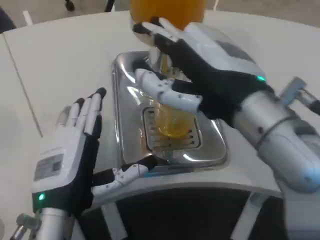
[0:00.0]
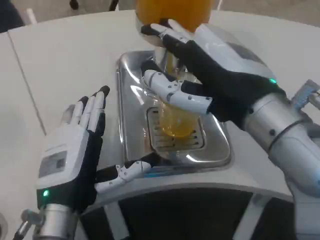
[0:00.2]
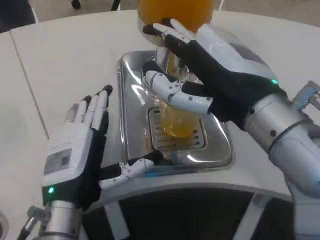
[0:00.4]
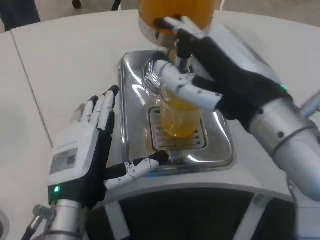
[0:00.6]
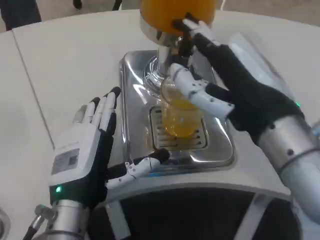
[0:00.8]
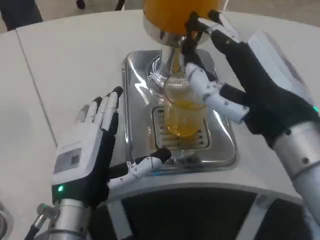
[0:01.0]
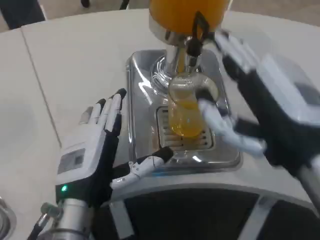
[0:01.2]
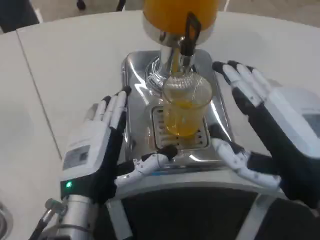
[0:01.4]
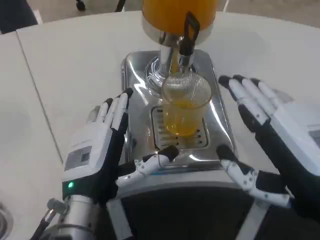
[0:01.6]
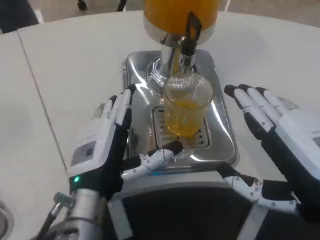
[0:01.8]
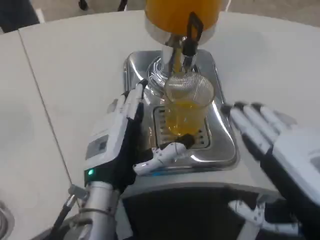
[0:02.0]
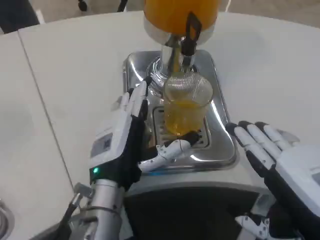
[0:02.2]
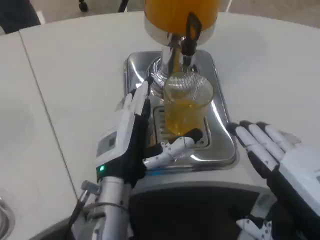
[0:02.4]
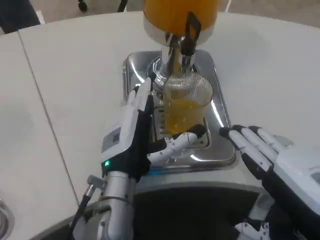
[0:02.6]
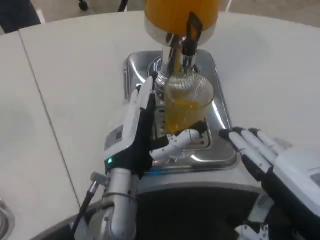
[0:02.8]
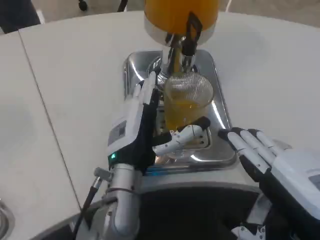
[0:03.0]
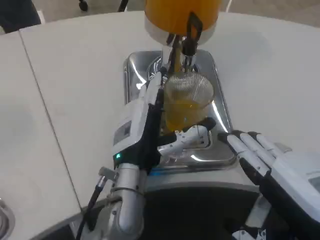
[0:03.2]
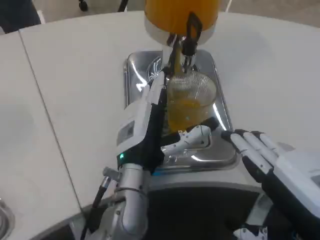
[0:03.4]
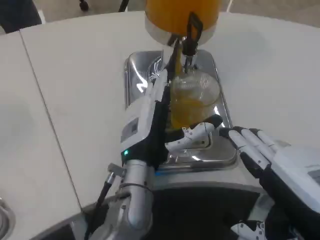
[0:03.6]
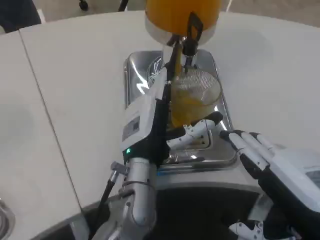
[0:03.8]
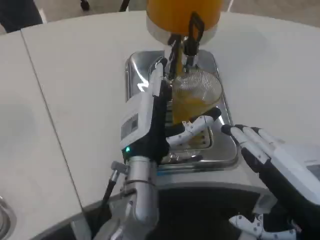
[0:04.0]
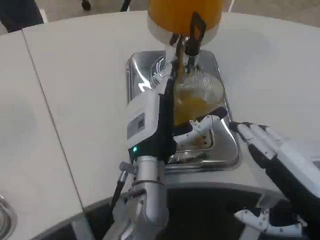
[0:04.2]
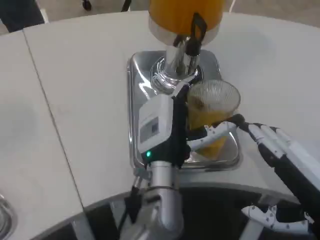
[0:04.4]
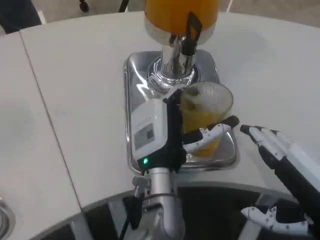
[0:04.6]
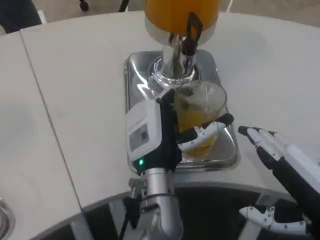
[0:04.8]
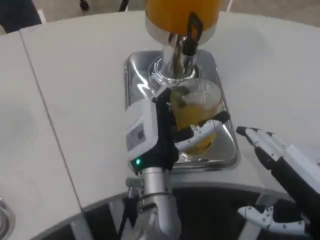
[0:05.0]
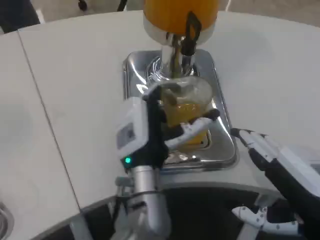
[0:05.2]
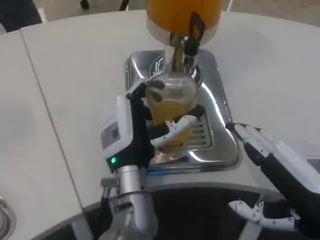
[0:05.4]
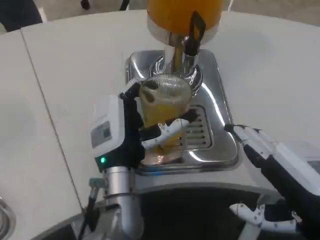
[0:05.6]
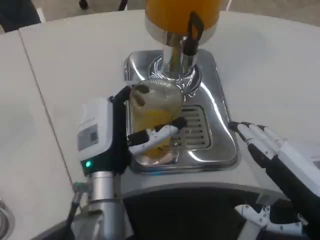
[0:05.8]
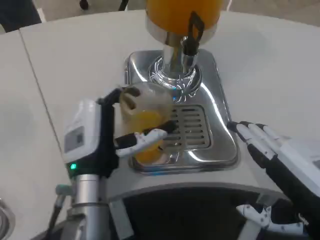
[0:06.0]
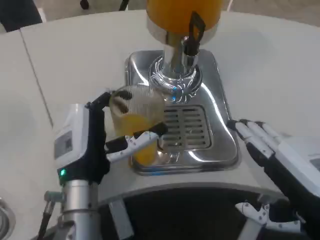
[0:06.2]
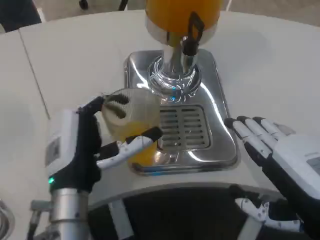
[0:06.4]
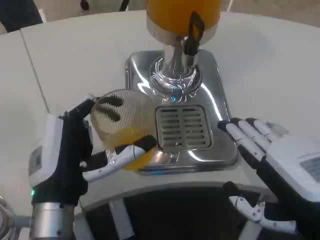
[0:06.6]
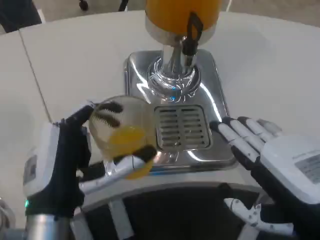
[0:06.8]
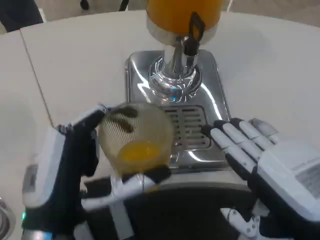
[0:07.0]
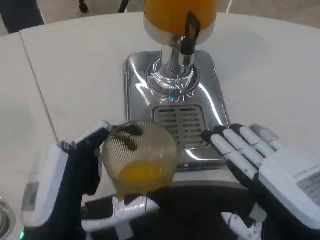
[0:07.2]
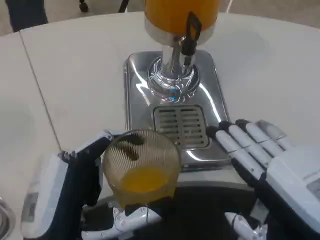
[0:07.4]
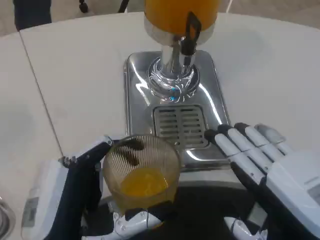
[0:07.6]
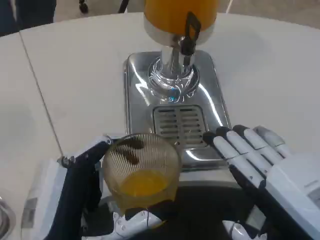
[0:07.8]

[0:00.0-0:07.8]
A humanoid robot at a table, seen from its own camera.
Task of the whole recording: Grasp the cup under the faucet to collect the drink, then remove the cup.
0:00.0 to 0:01.6: The right hand goes some 10 cm downward, to the right and backward.
0:01.6 to 0:03.2: The left hand shifts approximately 10 cm to the right and forward.
0:03.2 to 0:04.6: The left hand moves to the right, roughly 5 cm.
0:04.6 to 0:06.2: The left hand is displaced to the left by some 10 cm.
0:06.2 to 0:07.8: The left hand heads backward, covering roughly 15 cm.

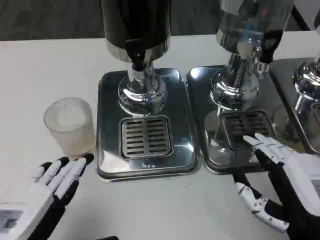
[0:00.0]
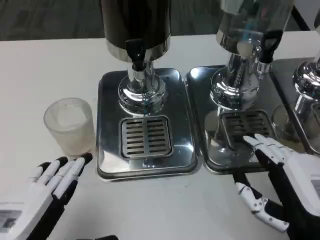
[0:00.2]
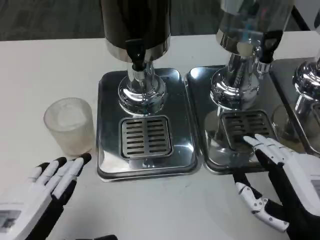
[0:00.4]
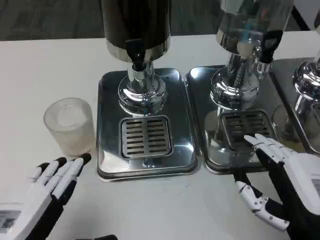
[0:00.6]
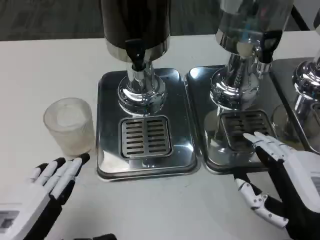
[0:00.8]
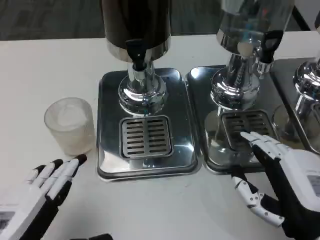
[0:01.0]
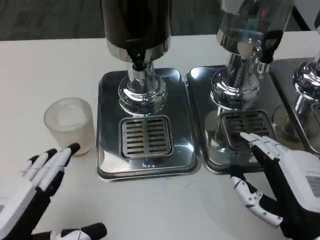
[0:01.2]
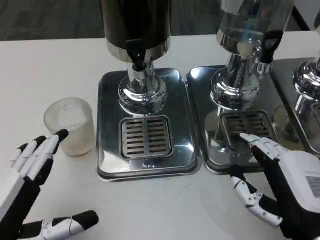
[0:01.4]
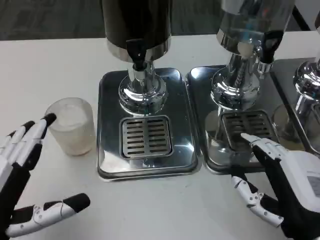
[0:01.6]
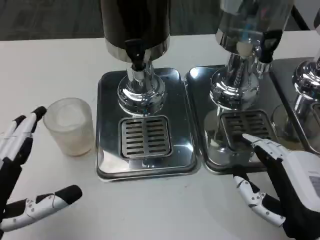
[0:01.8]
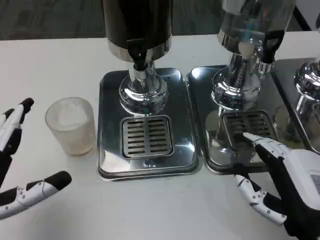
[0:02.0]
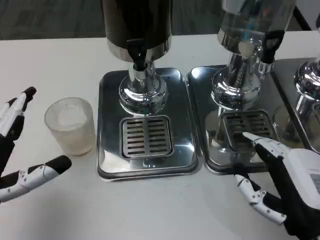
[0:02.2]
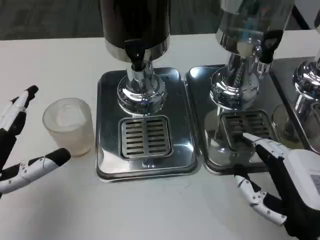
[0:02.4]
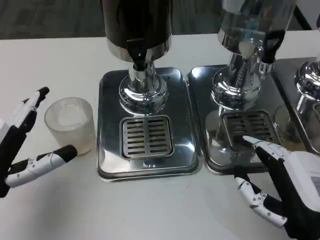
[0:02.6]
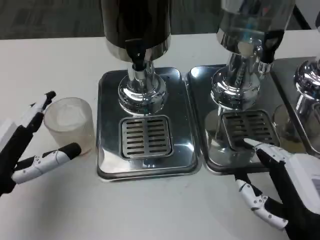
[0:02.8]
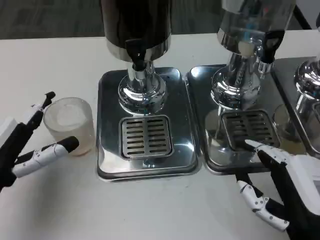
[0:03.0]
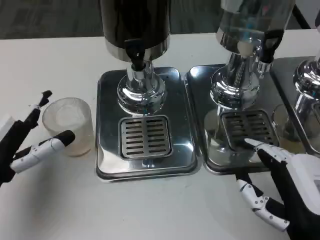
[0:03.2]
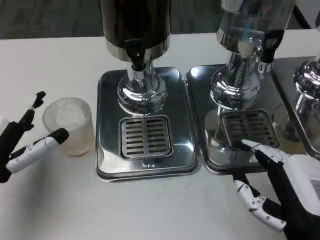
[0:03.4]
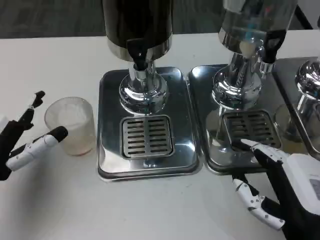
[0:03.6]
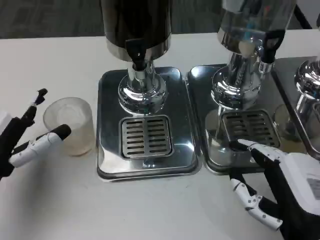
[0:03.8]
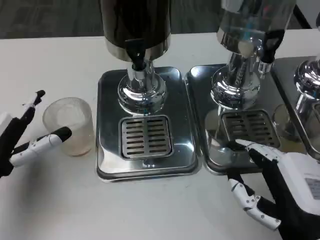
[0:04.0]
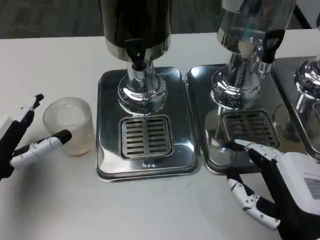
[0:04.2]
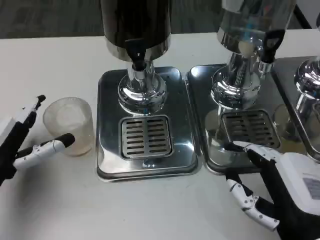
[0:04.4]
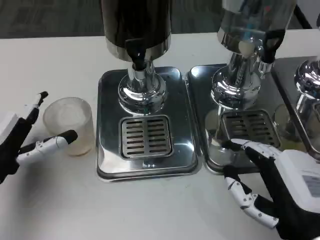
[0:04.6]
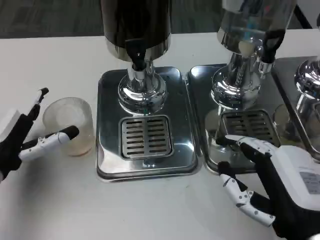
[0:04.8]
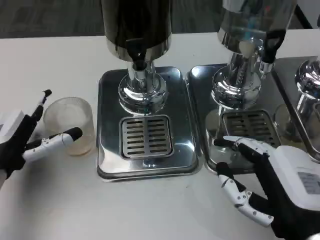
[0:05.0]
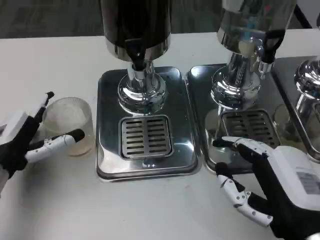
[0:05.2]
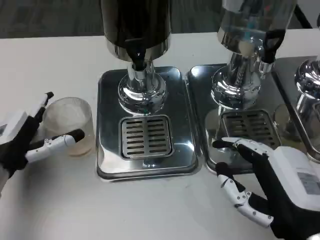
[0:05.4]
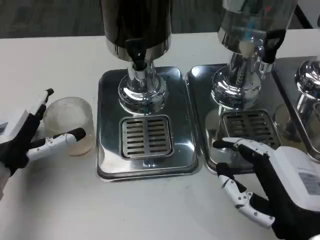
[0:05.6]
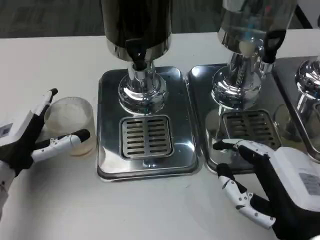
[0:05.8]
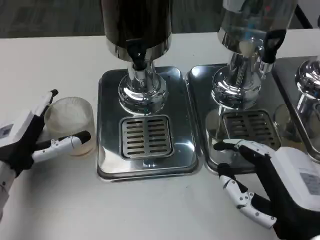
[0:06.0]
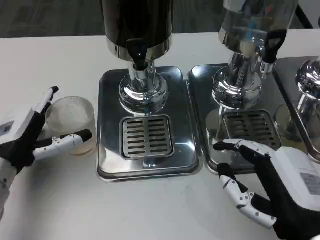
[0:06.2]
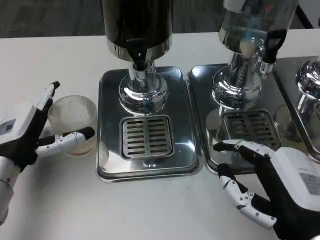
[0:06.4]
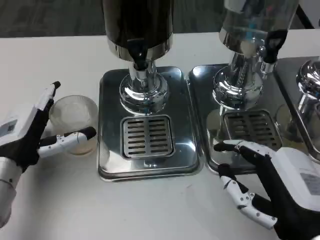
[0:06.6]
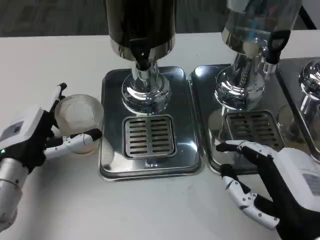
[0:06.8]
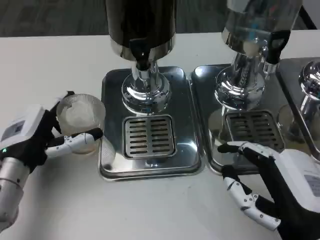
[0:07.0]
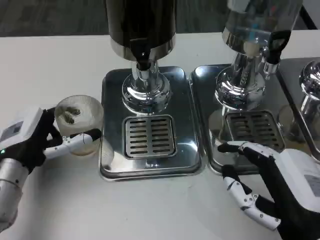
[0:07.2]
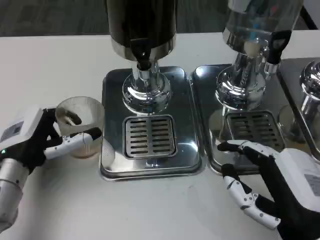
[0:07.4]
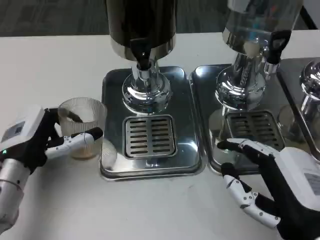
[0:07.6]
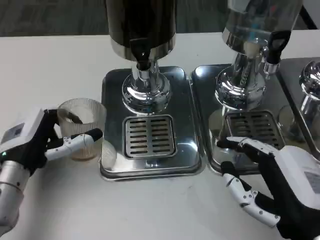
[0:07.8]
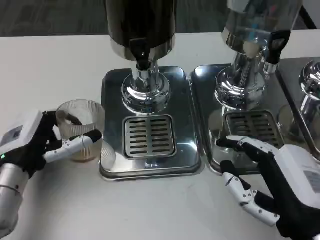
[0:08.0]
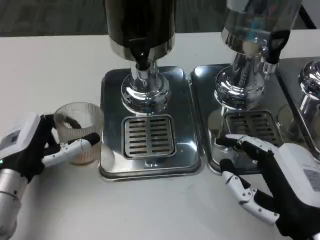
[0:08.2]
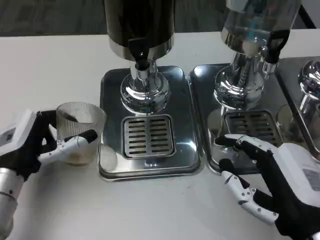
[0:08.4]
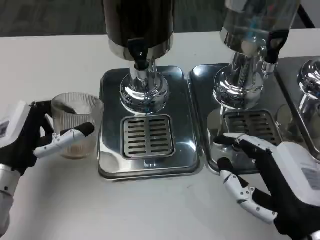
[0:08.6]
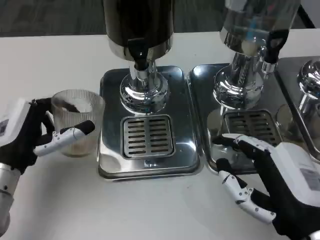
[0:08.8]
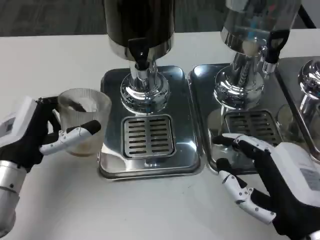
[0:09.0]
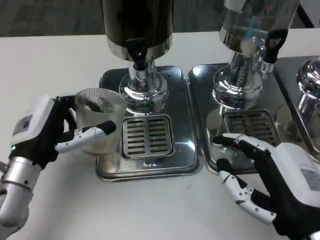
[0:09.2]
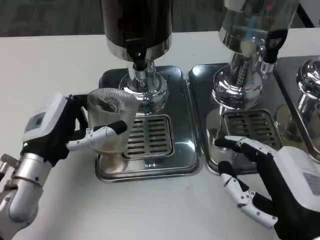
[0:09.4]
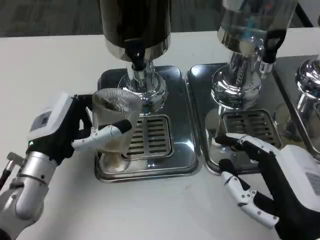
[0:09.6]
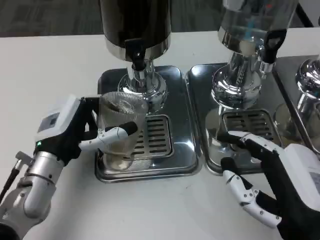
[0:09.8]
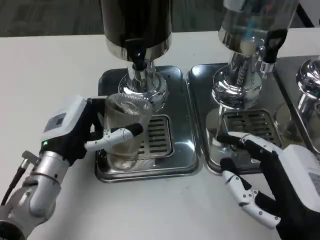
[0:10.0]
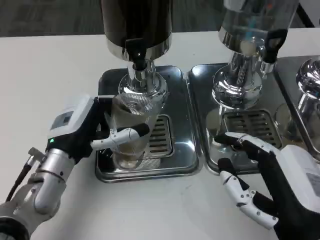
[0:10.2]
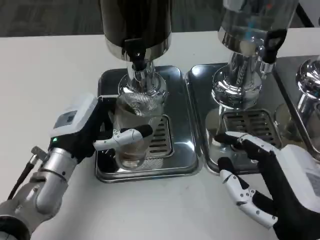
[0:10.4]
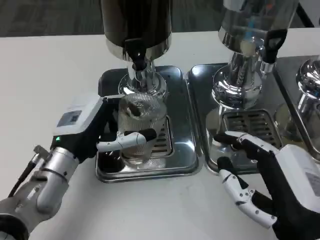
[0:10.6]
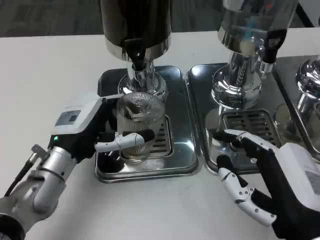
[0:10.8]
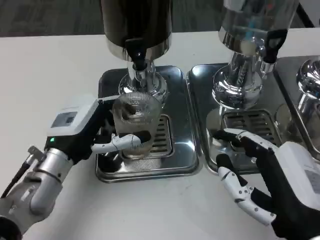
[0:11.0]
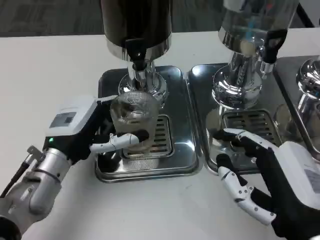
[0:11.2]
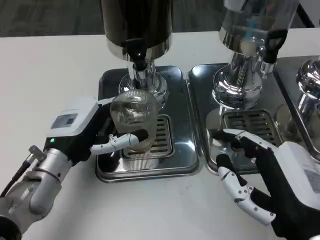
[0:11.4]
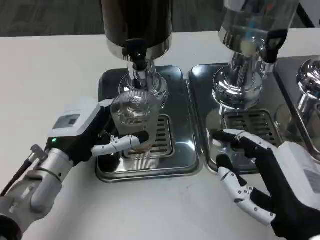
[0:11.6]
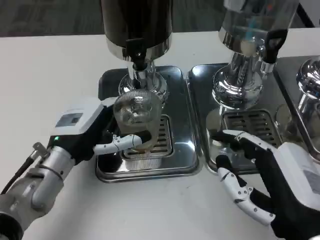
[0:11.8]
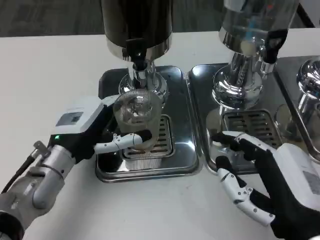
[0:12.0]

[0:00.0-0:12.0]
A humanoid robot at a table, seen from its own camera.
Task of the whole recording: Grasp the cup under the faucet to collect the drink, then remove the cup.
0:00.0 to 0:01.6: There are only small adjustments of the hands.
0:01.6 to 0:03.0: The left hand is displaced forward by roughly 10 cm.
0:03.0 to 0:06.0: The hands stay close to where they were, moving slightly.
0:07.6 to 0:09.0: The hands make only small movements.
0:09.0 to 0:10.4: The left hand travels to the right by some 5 cm.
0:10.4 to 0:12.0: The hands make only small movements.

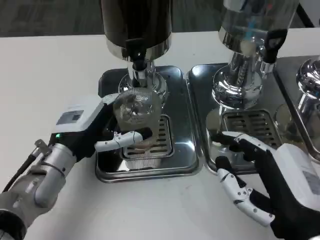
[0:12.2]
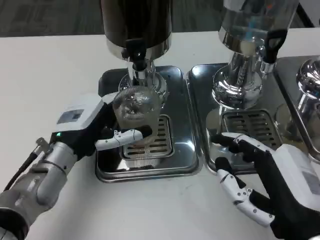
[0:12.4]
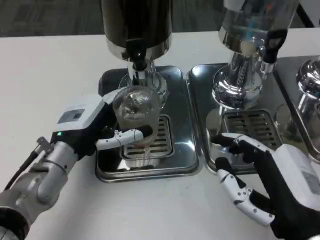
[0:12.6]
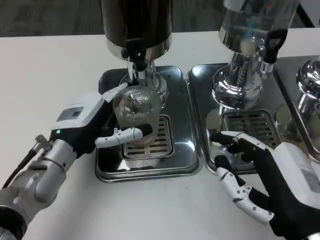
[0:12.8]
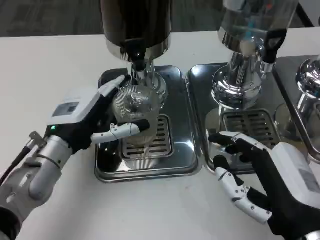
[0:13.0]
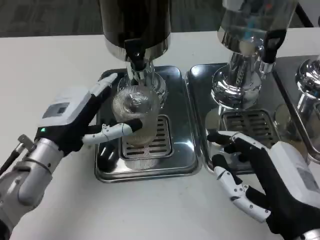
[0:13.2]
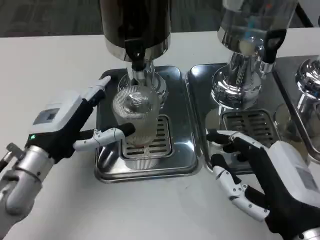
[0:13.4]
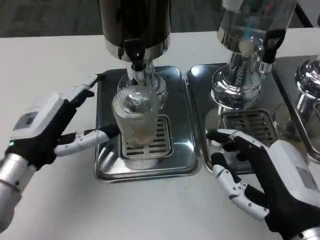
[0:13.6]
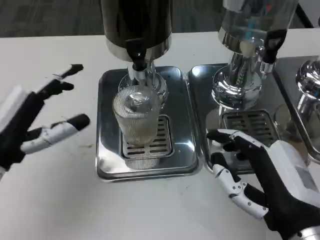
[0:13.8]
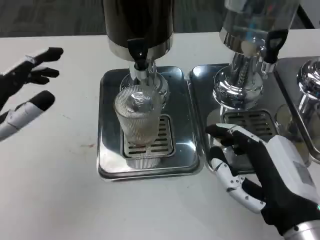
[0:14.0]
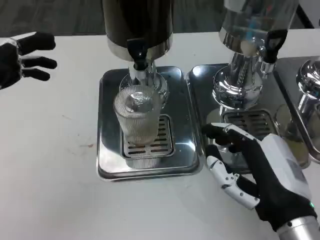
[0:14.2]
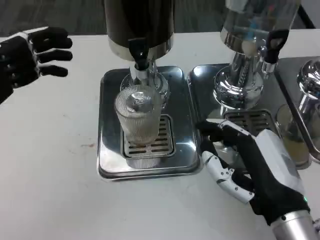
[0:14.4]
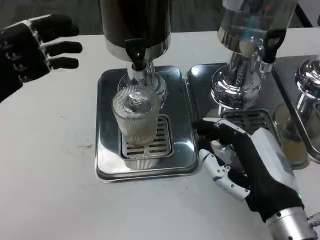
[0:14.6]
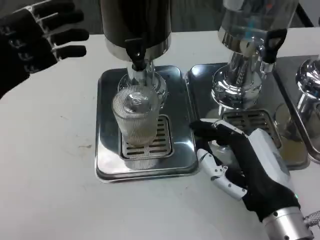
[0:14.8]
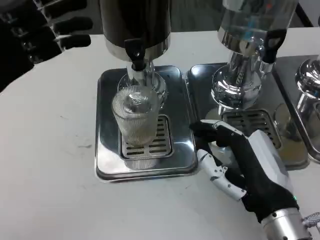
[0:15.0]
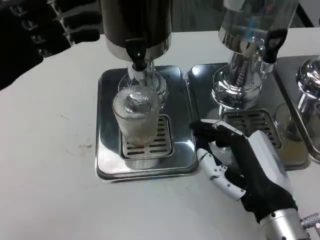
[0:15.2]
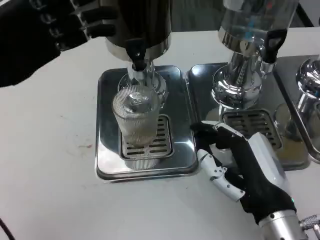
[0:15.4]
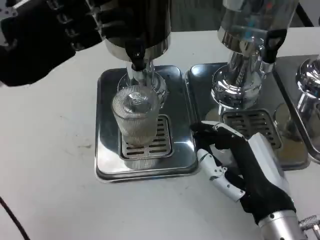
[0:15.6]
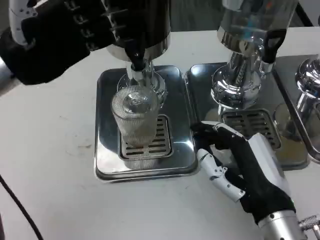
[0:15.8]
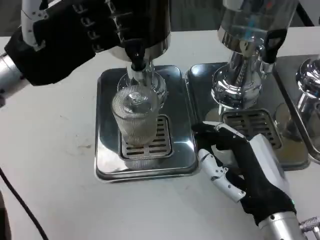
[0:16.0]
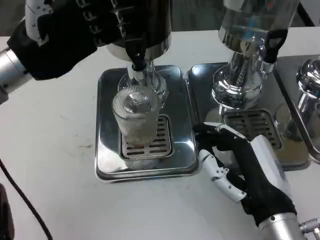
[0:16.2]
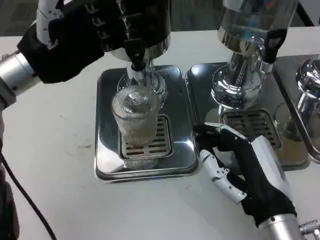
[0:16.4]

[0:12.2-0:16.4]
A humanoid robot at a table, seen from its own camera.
Task of the whole recording: Grasp the cup under the faucet to collect the drink, then remove the cup.
0:12.2 to 0:13.6: The left hand goes roughly 5 cm to the left.
0:13.6 to 0:15.0: The left hand heads upward, to the left and forward, covering roughly 15 cm.
0:15.0 to 0:16.4: The left hand heads to the right and forward, covering approximately 10 cm.
